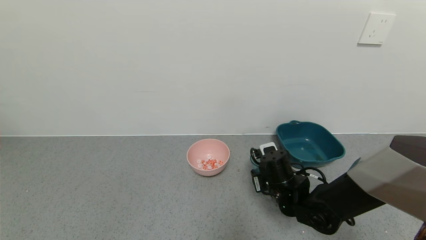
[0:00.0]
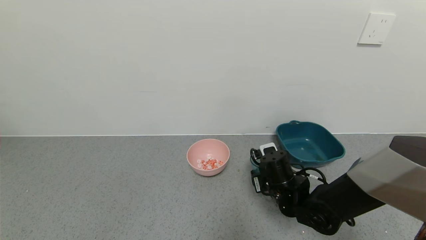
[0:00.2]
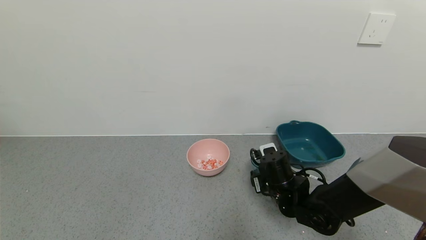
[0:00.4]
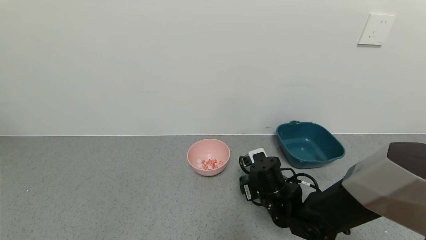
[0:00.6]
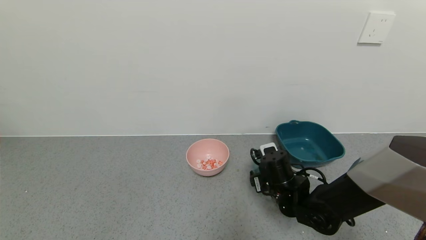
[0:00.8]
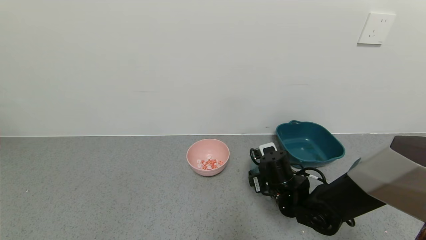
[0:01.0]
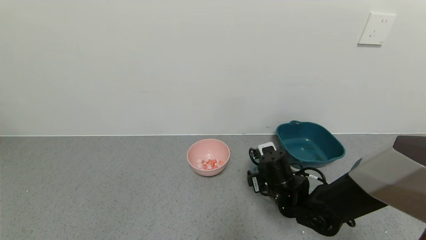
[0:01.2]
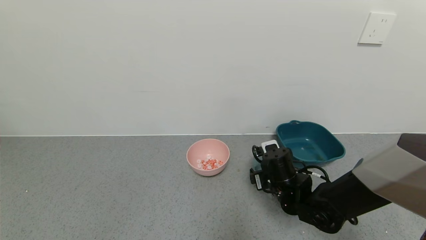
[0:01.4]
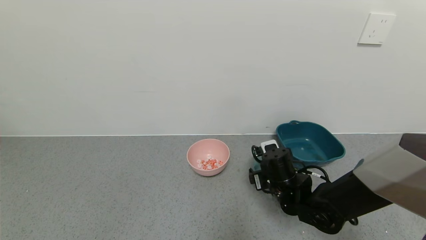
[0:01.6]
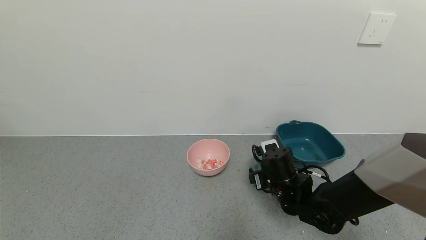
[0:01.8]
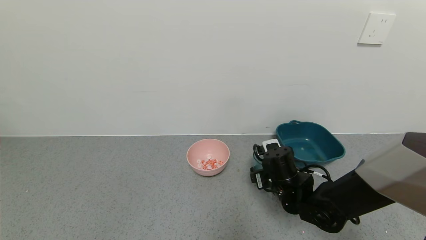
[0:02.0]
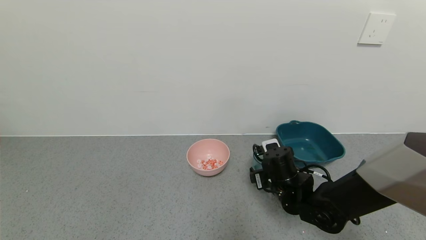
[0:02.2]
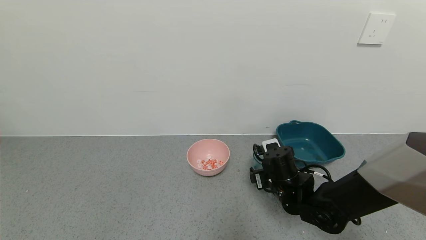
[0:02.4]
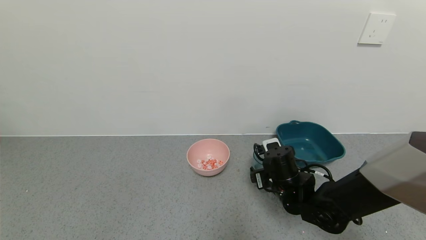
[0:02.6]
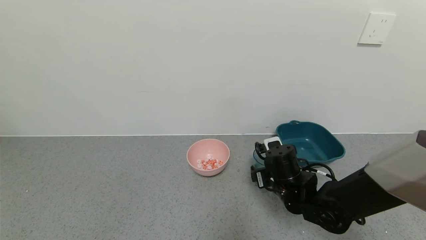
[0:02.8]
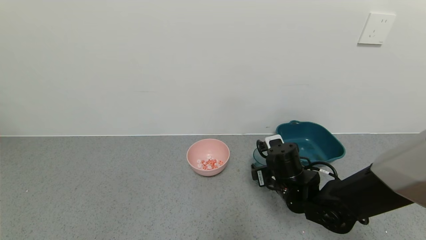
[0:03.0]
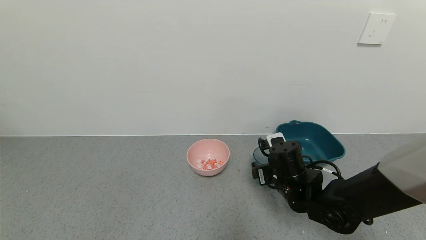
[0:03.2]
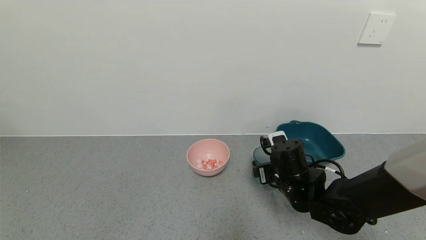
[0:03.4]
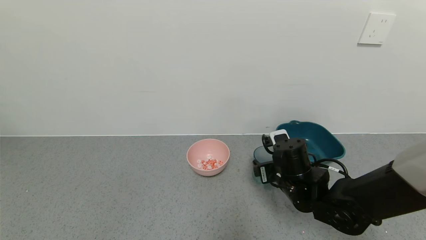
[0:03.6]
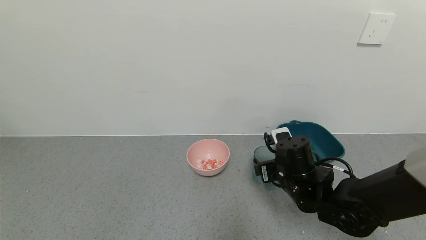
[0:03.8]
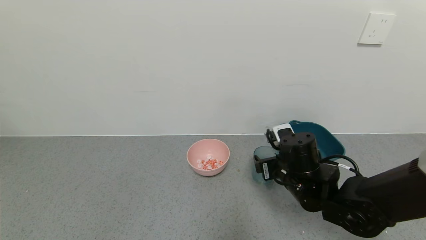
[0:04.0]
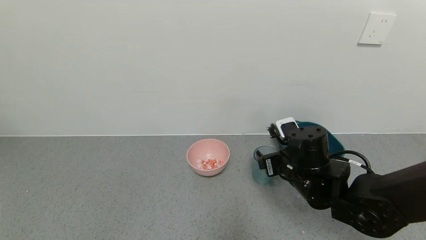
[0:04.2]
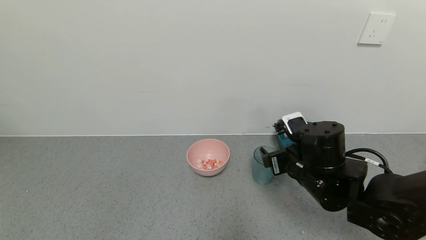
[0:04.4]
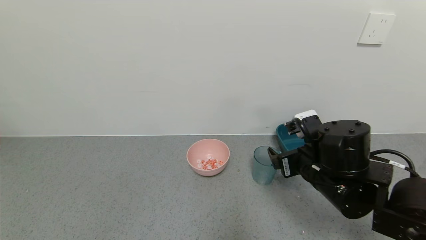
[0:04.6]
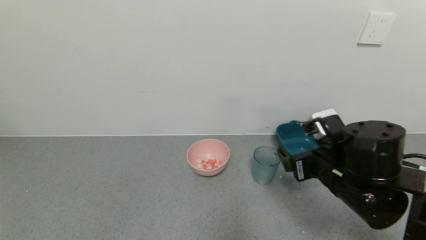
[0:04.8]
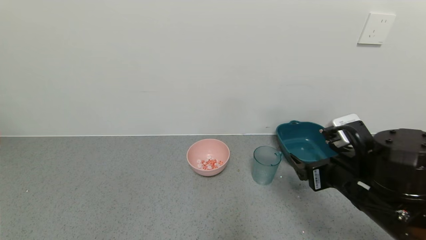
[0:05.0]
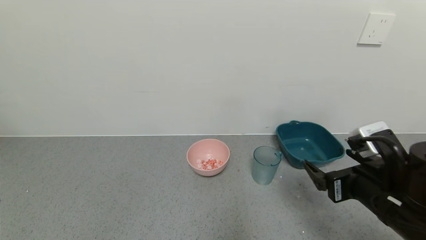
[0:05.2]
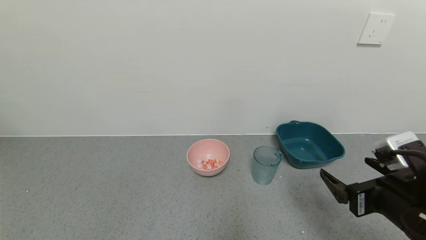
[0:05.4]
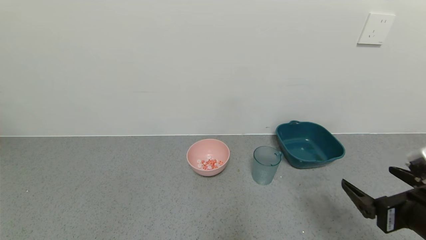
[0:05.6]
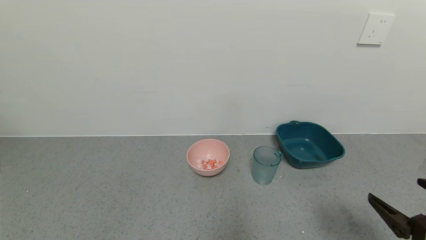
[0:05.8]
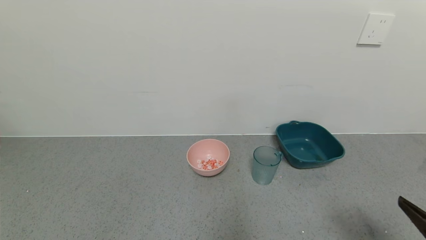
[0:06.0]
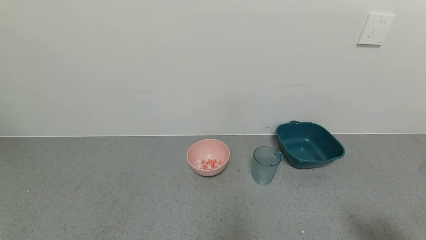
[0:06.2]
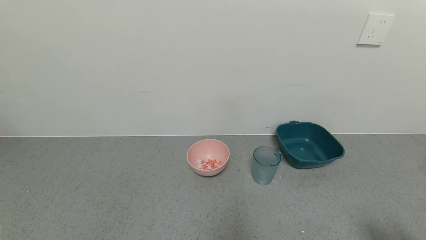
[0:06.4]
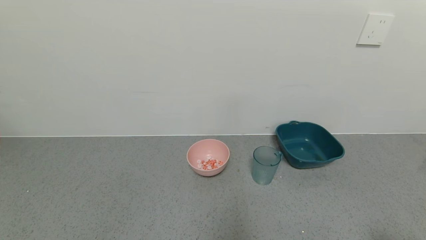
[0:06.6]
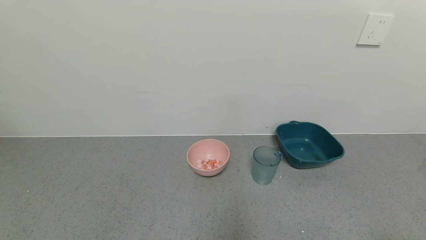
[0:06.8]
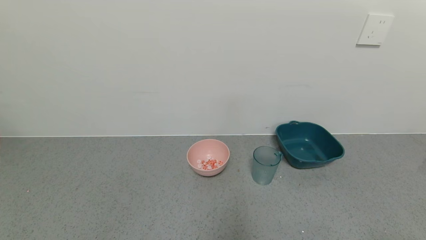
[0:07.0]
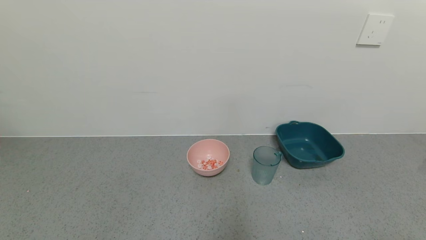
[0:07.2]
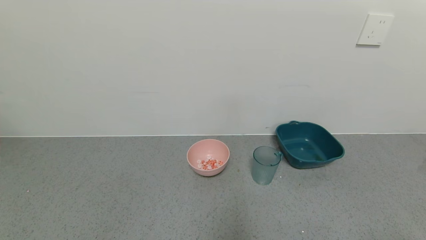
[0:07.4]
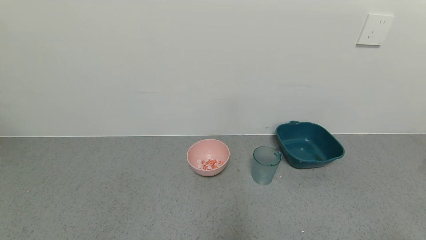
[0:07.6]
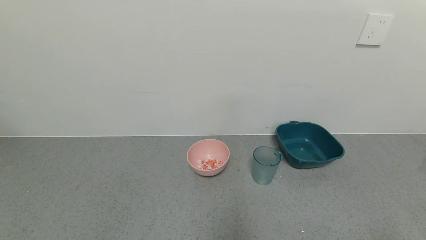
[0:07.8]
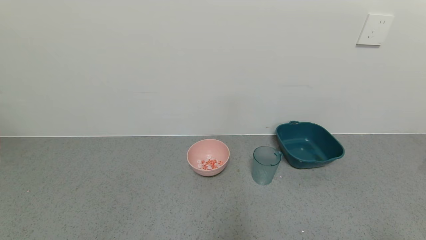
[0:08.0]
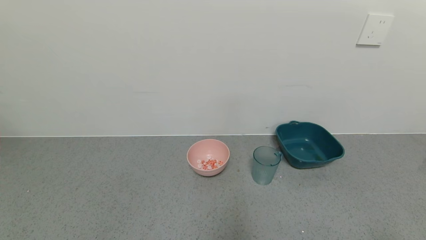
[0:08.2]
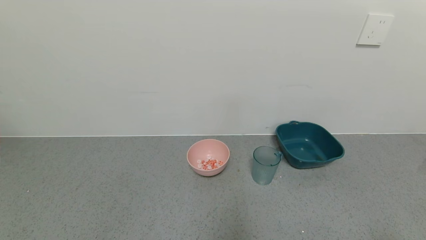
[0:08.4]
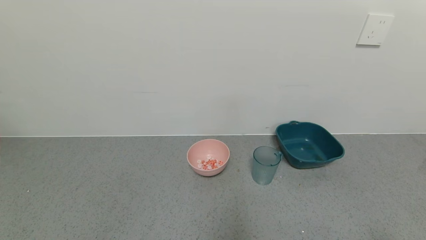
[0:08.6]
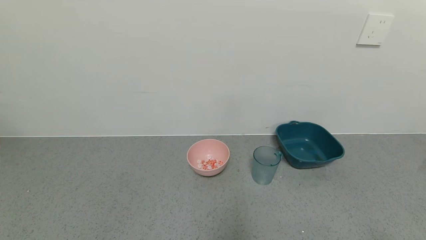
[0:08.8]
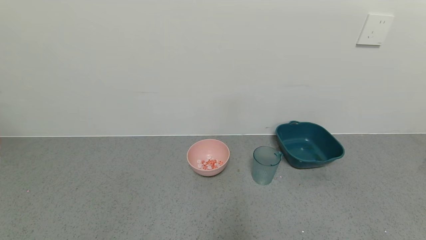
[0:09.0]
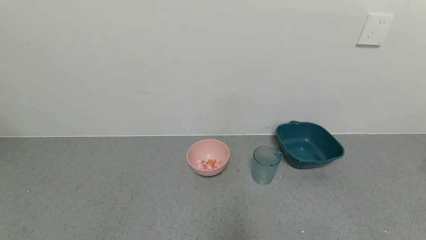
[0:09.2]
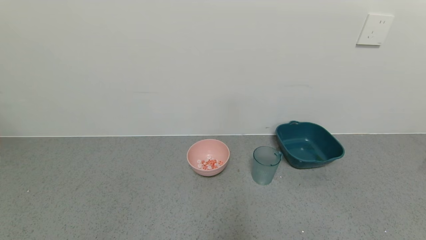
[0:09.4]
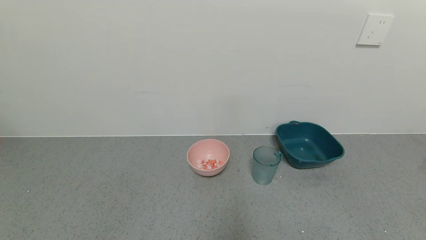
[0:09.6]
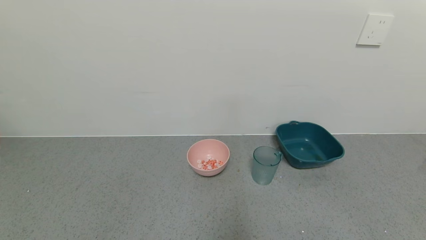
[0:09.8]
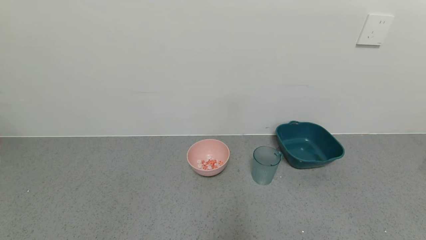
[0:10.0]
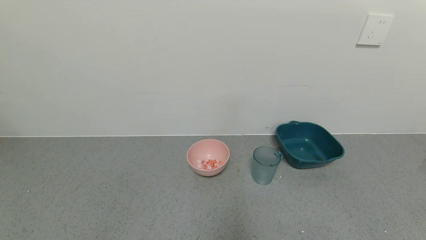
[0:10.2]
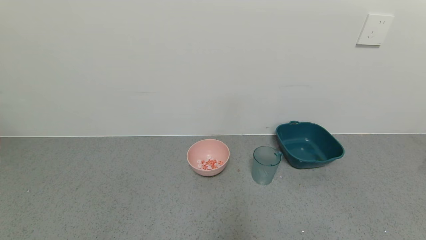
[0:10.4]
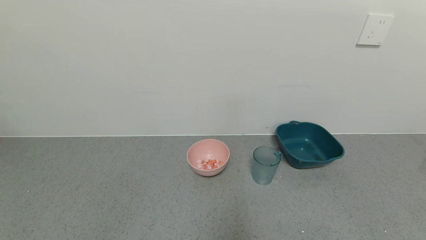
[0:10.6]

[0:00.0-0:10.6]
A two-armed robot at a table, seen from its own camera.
Task of the whole recording: use a gripper to pick up the cup and pour the solid into a bowl or tray.
Step, 0:00.0 to 0:03.4: Place the glass cup with the right gripper.
0:00.0 to 0:01.6: The right gripper opens its fingers.
0:01.6 to 0:03.0: There are only small adjustments of the grippers.
0:03.0 to 0:04.6: The right gripper travels upward and backward by about 10 cm.
0:04.6 to 0:06.0: The right gripper goes some 25 cm backward and to the right.
0:06.0 to 0:07.6: The right gripper shifts about 10 cm backward.

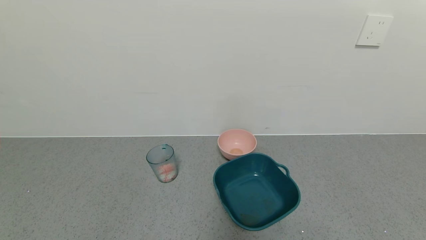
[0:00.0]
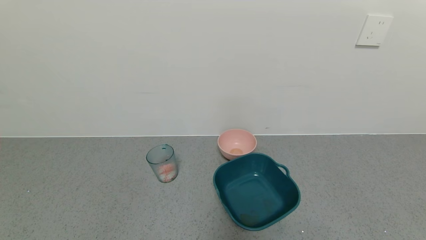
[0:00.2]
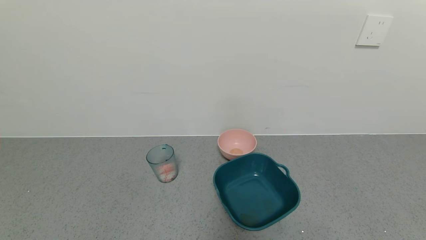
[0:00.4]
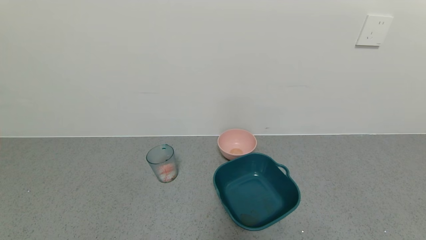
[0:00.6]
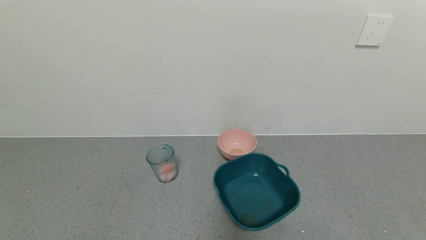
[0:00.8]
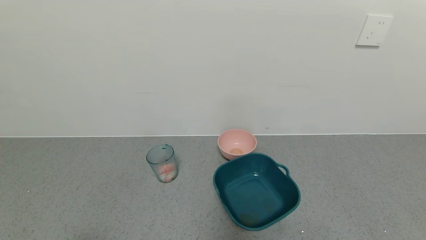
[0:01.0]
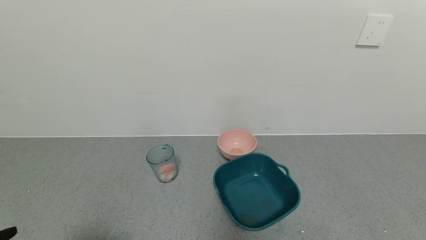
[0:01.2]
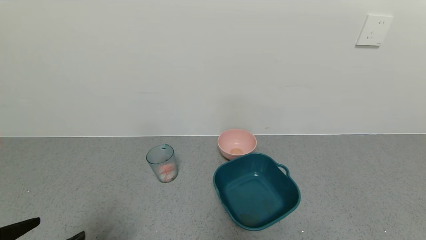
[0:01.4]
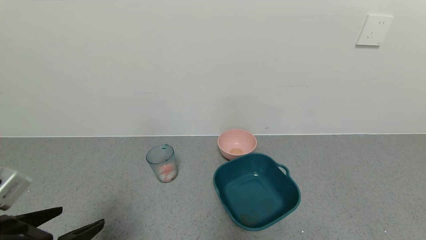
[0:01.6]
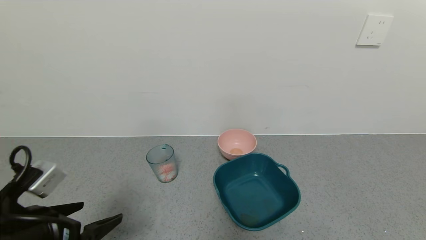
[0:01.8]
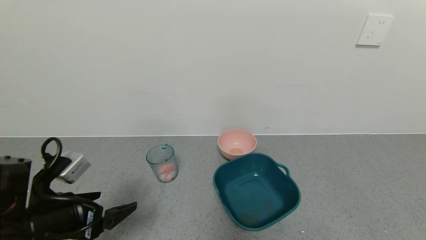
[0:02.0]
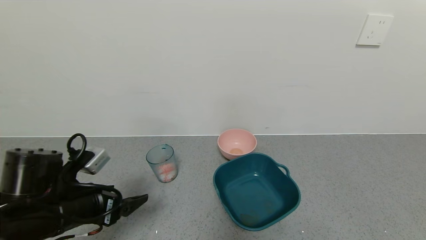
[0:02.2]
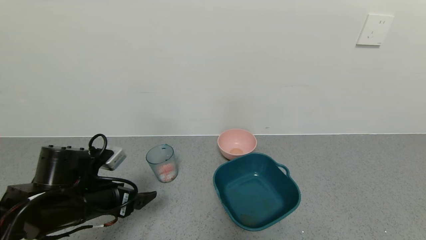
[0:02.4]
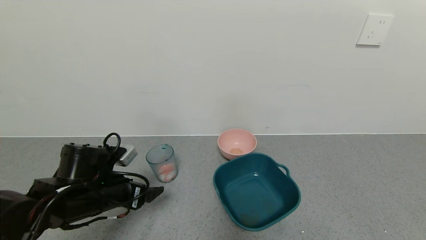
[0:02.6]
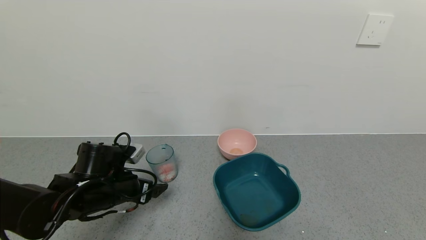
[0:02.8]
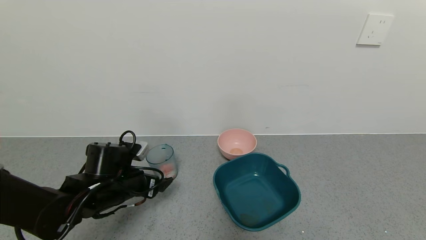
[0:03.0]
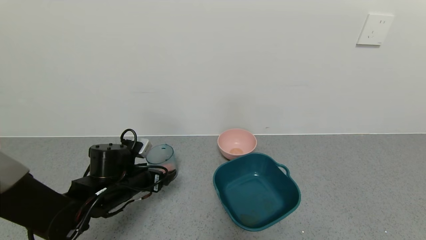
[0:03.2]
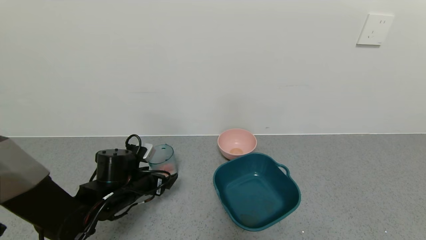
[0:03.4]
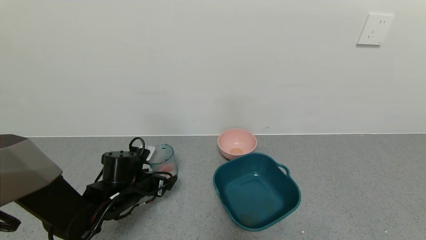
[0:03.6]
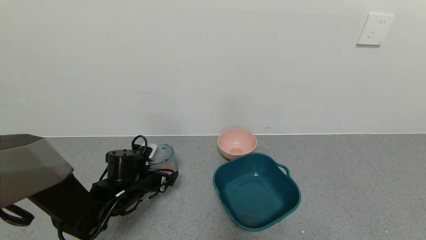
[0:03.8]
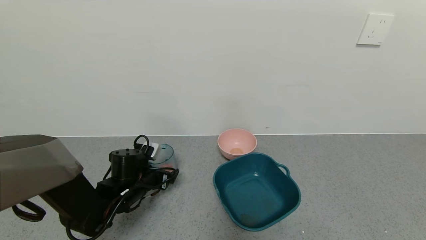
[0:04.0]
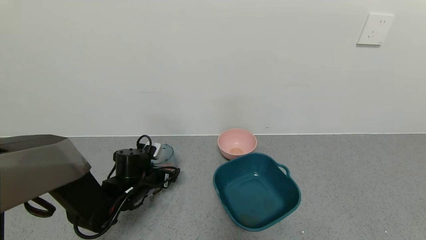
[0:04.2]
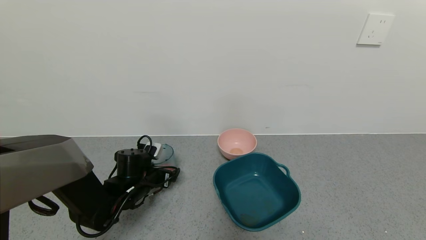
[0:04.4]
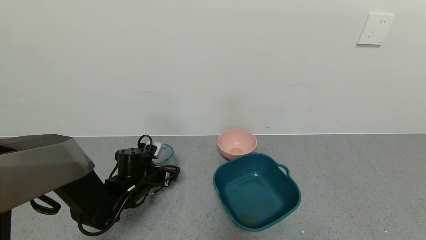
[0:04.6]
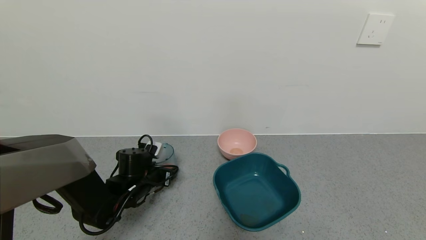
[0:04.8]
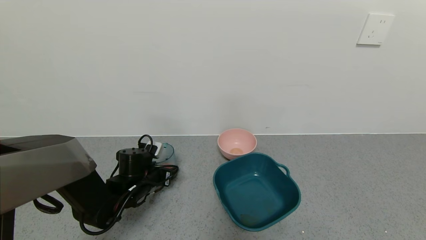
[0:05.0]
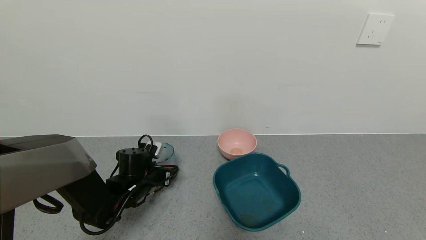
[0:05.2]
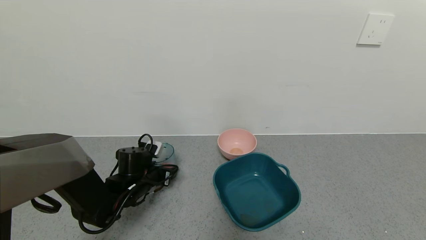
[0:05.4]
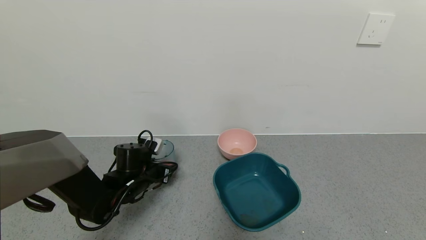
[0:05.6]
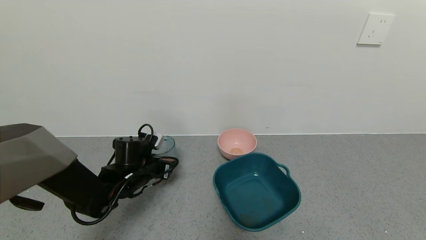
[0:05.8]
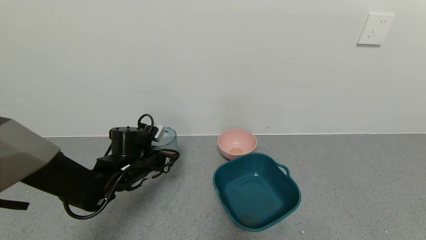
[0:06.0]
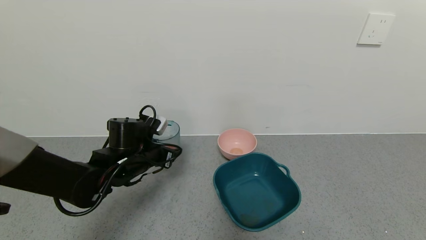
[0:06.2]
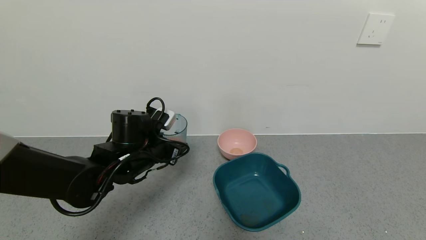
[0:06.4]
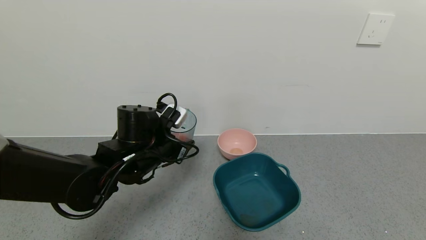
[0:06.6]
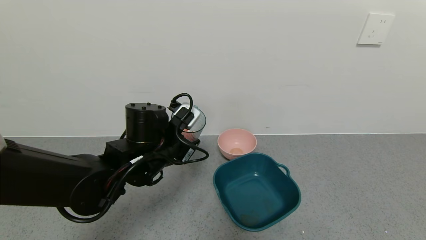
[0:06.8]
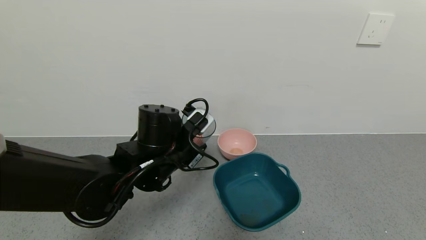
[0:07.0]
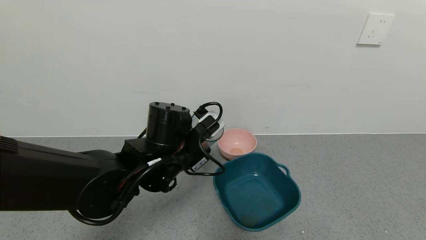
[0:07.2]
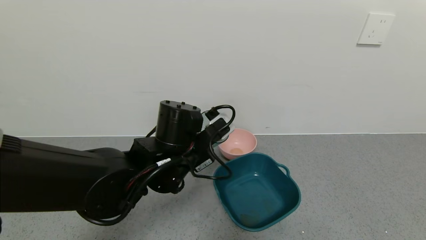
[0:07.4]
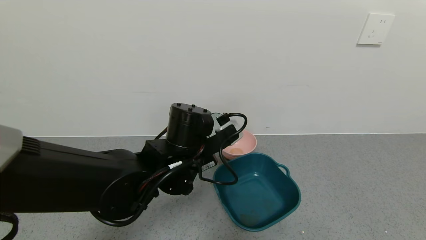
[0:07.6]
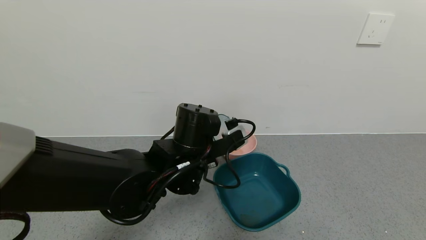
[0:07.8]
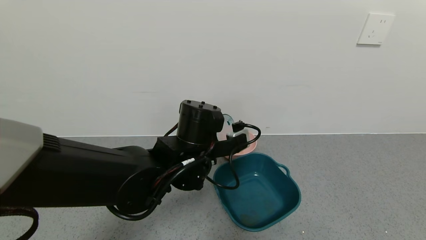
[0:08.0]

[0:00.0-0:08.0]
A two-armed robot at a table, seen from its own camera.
Task of the whole recording: use a gripper to pick up the cup and pour the solid into a bowl or tray.
Step, 0:00.0 to 0:05.4: Grasp the glass of shrimp with the left gripper.
0:00.0 to 0:01.6: The left gripper travels forward and upward by about 15 cm.
0:01.6 to 0:03.2: The left gripper shifts roughly 20 cm forward and downward.
0:03.2 to 0:04.8: The left gripper shifts approximately 5 cm forward and downward, and closes up.
0:04.8 to 0:06.4: The left gripper moves upward, roughly 10 cm.
0:06.4 to 0:08.0: The left gripper is displaced to the right by approximately 10 cm.
